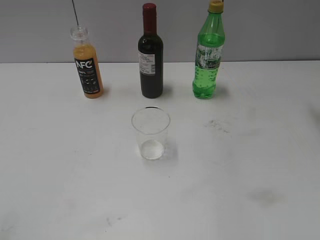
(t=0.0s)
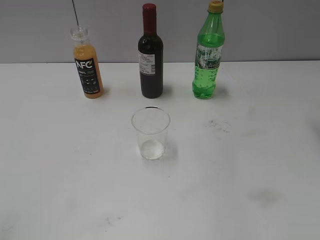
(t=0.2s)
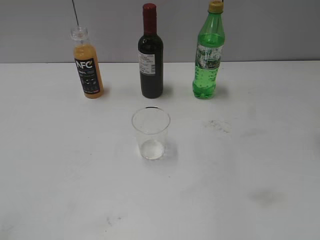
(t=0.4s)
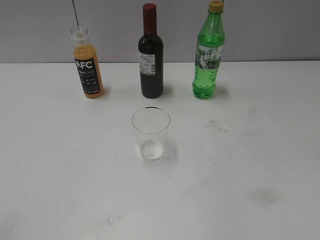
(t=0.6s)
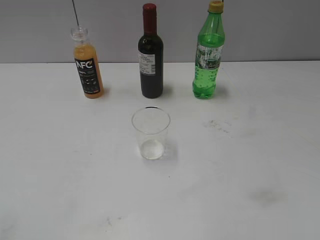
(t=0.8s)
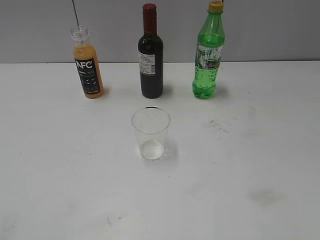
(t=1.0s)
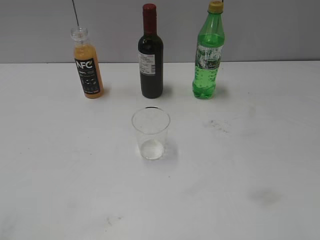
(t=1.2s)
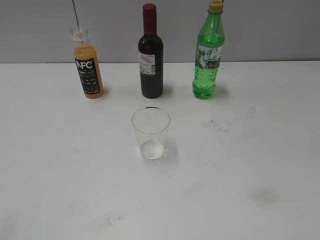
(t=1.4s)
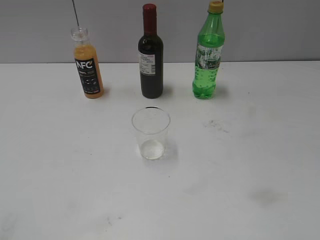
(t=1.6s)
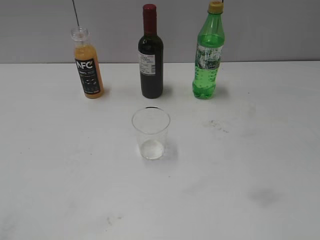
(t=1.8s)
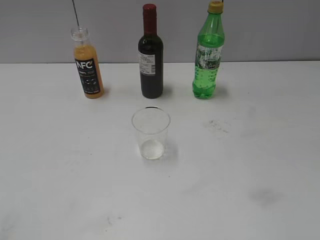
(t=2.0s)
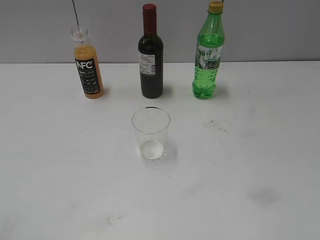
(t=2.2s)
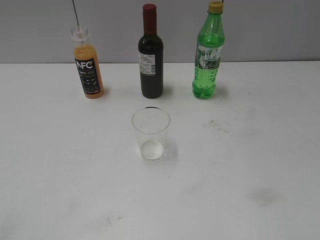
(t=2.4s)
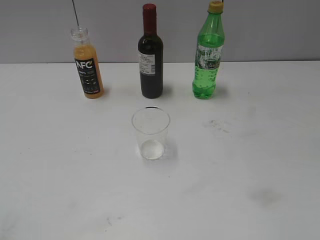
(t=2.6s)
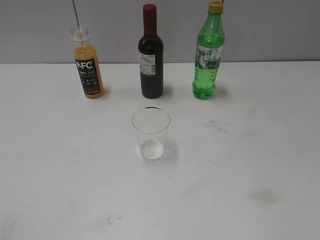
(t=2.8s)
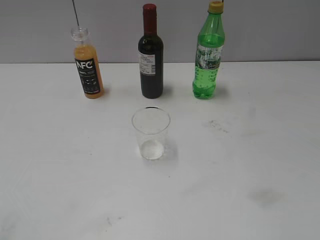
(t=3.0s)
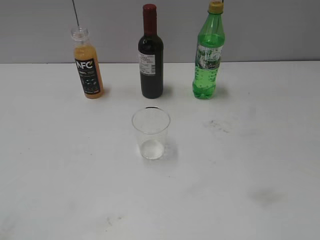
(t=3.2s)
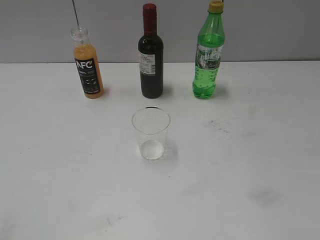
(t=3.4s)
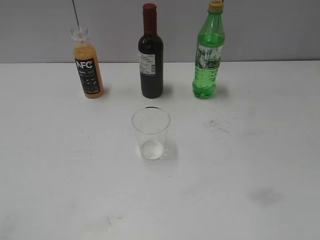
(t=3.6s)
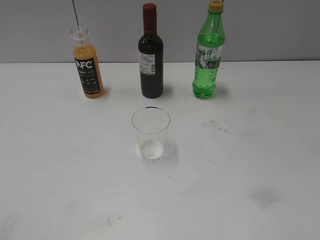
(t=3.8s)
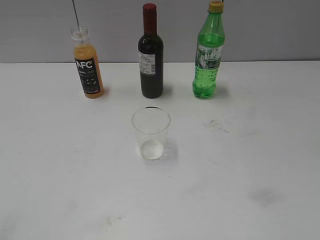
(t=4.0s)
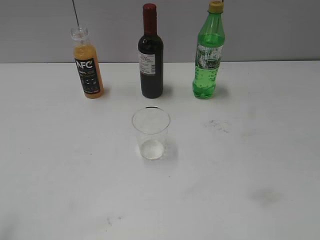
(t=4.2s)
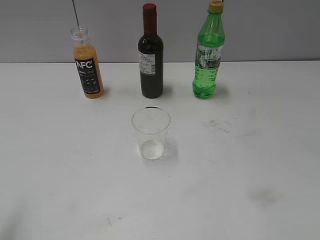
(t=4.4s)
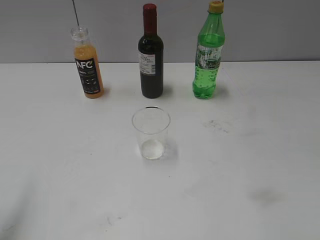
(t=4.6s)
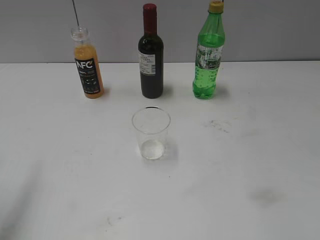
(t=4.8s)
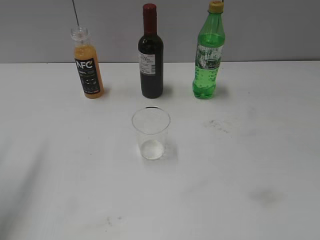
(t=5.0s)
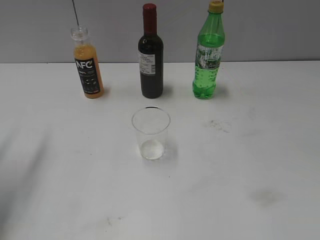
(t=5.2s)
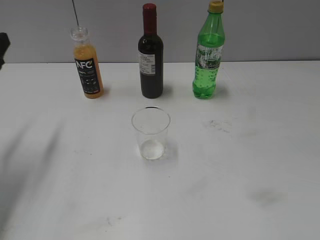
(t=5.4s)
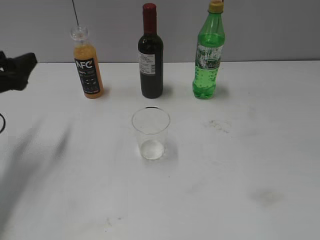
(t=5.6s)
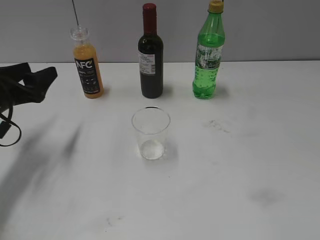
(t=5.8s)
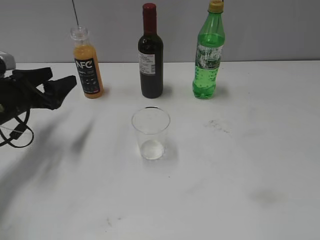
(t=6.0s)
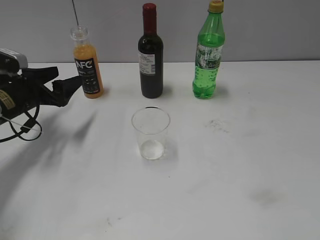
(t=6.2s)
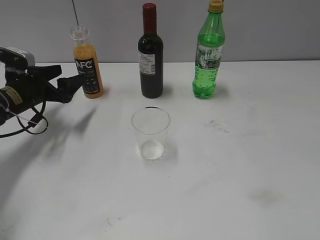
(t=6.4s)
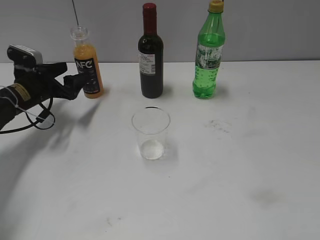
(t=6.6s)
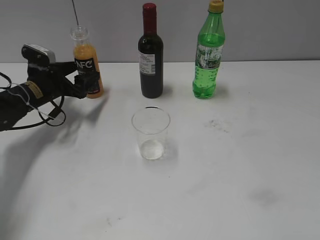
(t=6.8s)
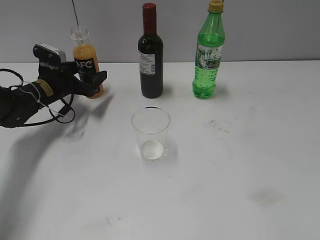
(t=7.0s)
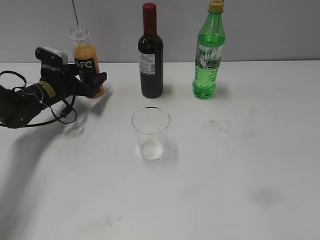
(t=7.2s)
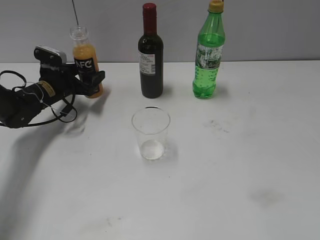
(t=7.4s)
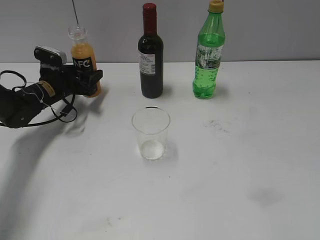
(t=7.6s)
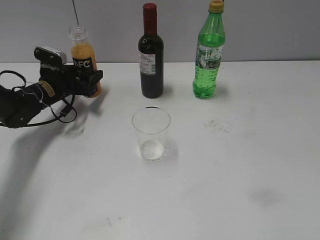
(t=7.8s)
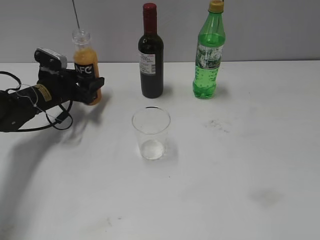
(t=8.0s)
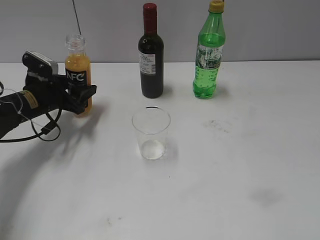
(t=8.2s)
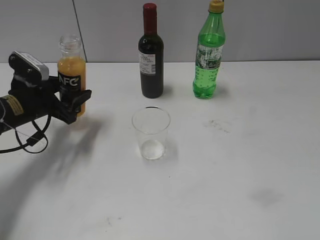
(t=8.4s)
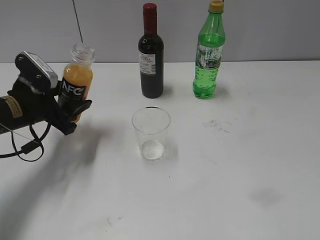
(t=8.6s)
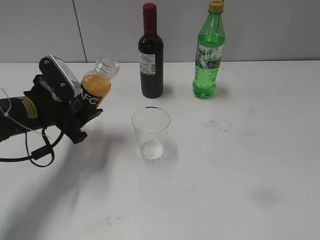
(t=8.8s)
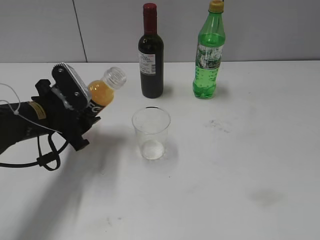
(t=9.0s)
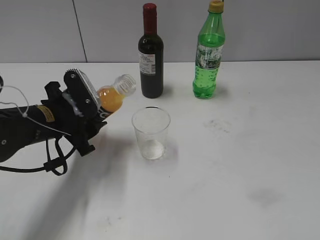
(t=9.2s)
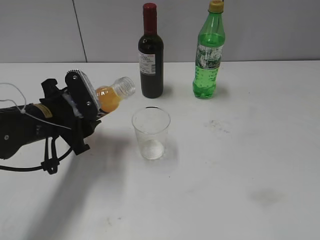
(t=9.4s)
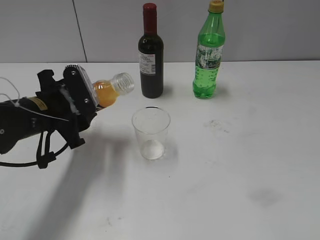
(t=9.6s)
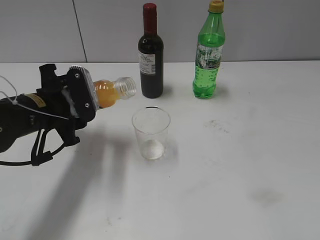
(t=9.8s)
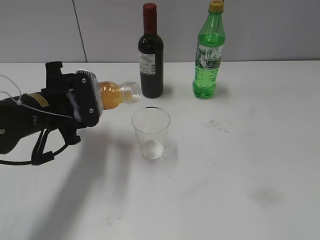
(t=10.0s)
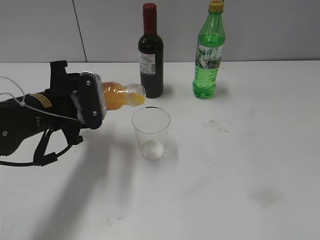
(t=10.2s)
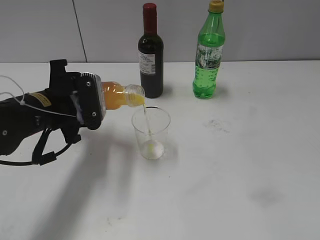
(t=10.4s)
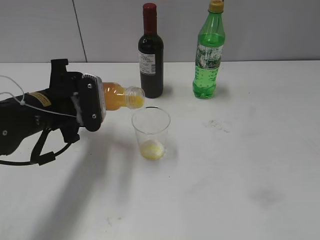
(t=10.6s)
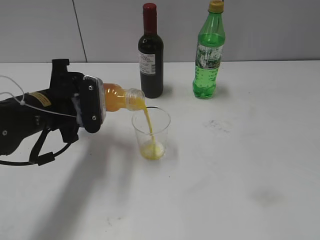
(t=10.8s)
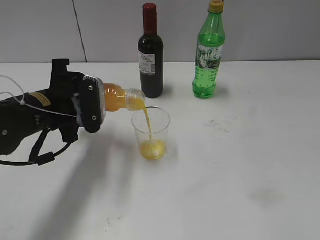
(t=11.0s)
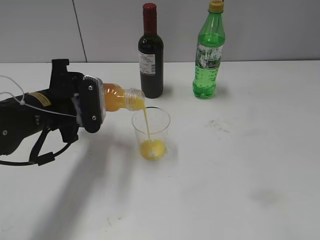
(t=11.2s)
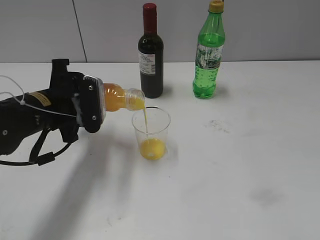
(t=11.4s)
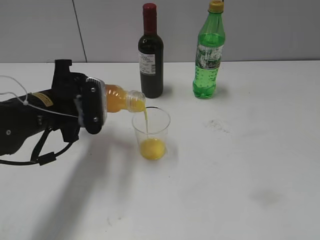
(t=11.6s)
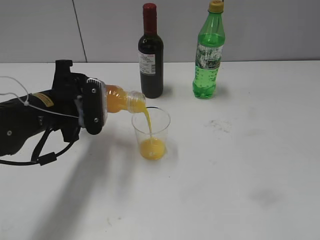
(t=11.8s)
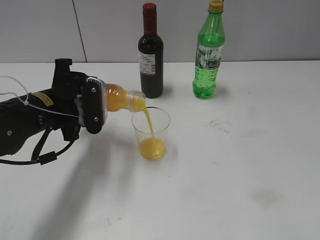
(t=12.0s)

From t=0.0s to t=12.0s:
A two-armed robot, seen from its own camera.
Step, from t=0.0s to t=7.6s: Grasp the bottle with orange juice with left gripper.
From t=4.4s to t=6.0s: The left gripper goes roughly 30 cm forward and downward.
From t=6.0s to t=7.6s: The left gripper moves forward and downward, some 15 cm, and closes up.
From t=7.6s to t=9.0s: The left gripper goes some 15 cm backward and upward.
From t=10.4s to t=12.0s: The grippers move only a little.

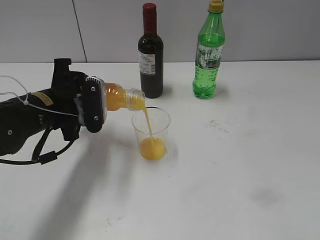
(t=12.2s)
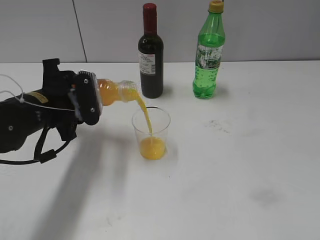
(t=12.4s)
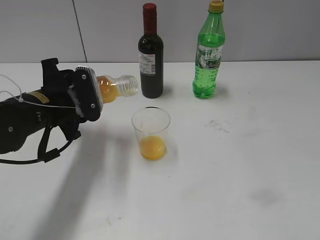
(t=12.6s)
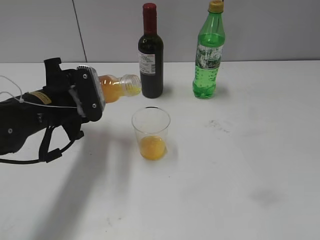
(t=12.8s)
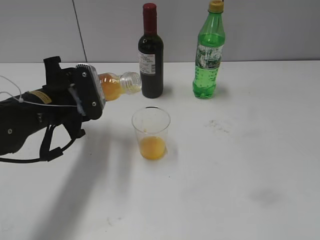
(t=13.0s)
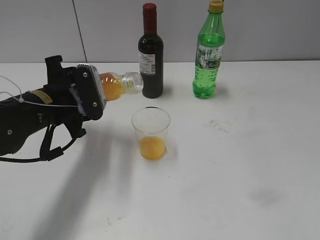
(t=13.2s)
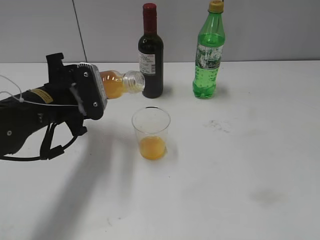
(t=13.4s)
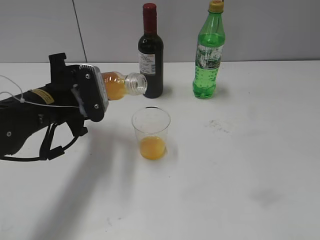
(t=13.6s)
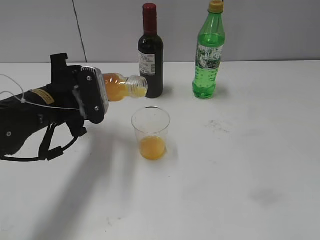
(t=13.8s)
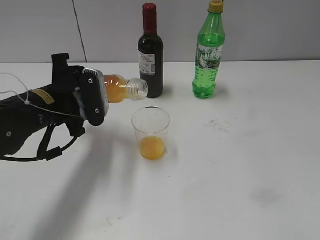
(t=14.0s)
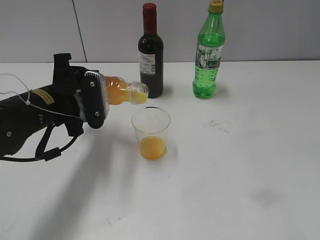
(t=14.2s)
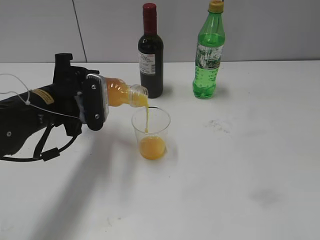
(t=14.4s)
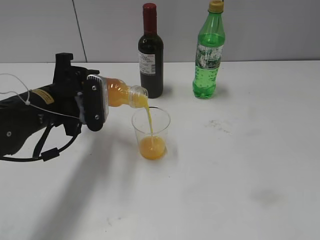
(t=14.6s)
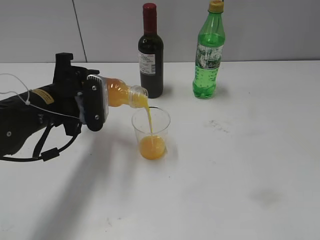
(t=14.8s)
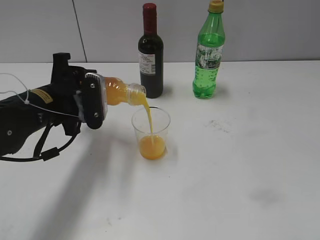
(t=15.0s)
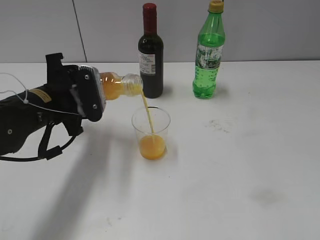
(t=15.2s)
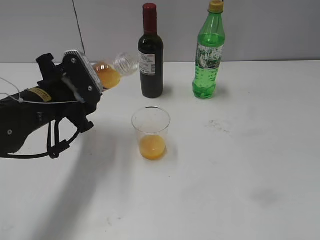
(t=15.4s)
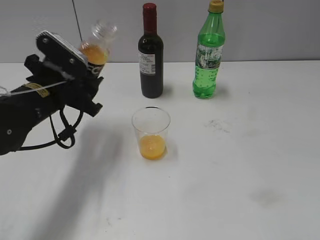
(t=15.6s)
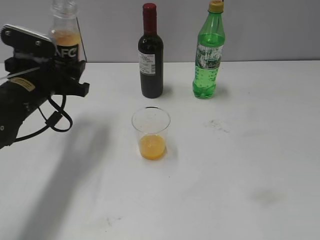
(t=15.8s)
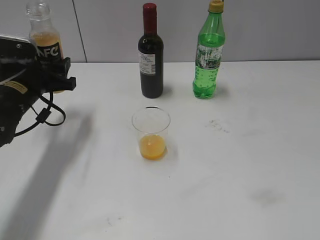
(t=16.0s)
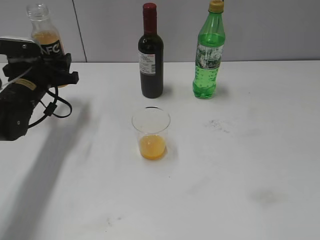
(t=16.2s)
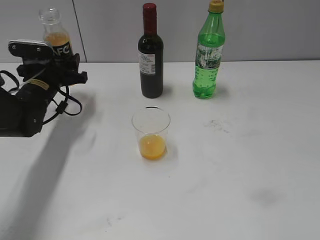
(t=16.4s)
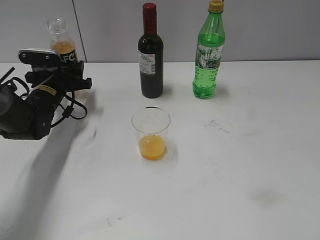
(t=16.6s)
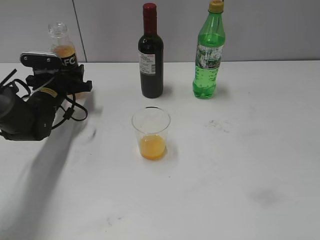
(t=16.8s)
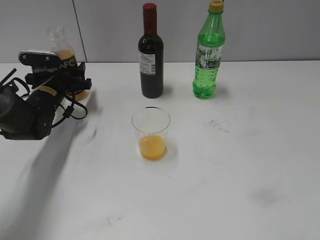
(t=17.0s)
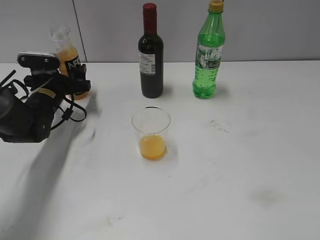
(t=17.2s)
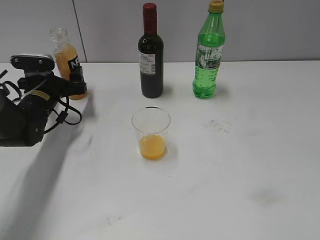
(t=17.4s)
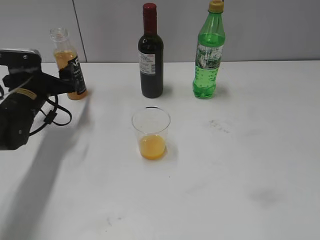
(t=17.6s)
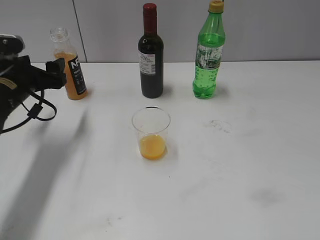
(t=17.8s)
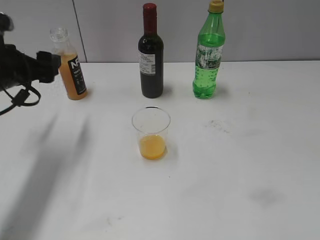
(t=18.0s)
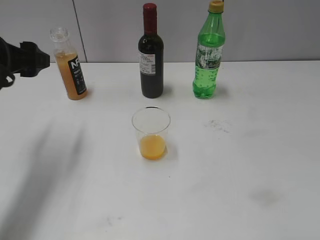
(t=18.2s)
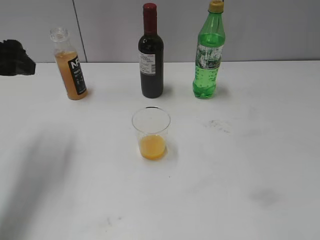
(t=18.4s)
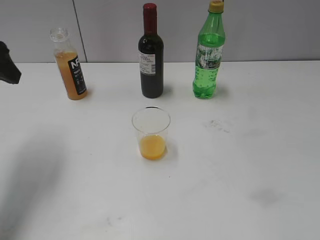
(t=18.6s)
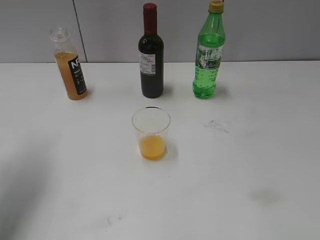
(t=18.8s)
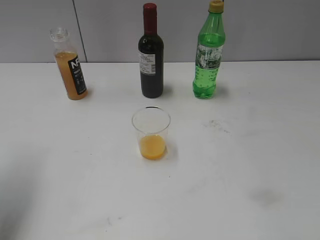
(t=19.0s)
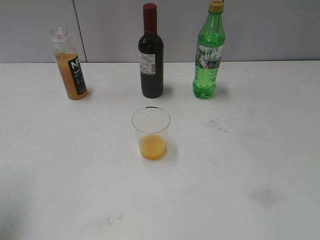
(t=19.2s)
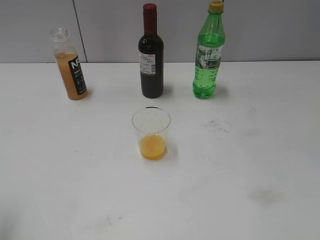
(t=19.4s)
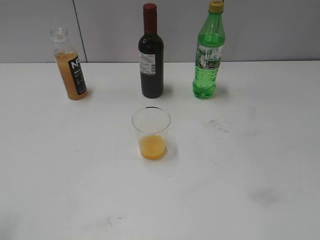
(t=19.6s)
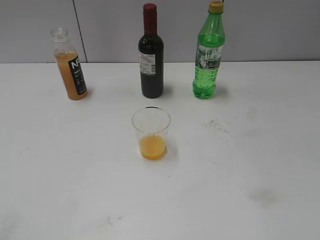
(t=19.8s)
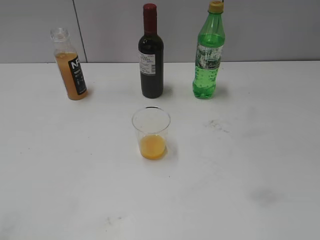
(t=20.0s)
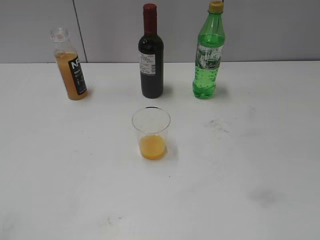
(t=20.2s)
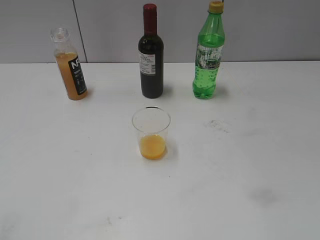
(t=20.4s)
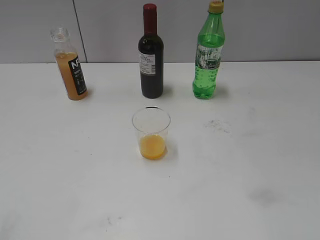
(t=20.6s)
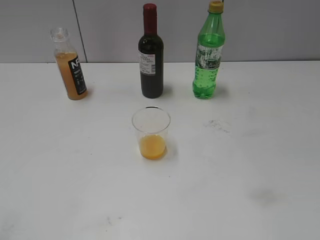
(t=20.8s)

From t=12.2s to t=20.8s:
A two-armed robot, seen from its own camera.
Step, from t=12.2s to t=15.2s: Pour the orange juice from bottle to cup with left gripper.
Step, from t=15.6s to t=17.0s: Place the orange juice bottle on the table with left gripper.
From t=12.2s to t=15.0s: There are only small adjustments of the grippers.
From t=15.0s to t=16.6s: The left gripper travels forward, downward and to the left by about 15 cm.
From t=16.6s to t=18.0s: The left gripper is displaced upward and backward by roughly 15 cm, and opens its fingers.
From t=18.0s to t=19.4s: The left gripper goes some 20 cm backward and upward.
